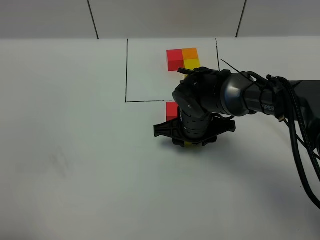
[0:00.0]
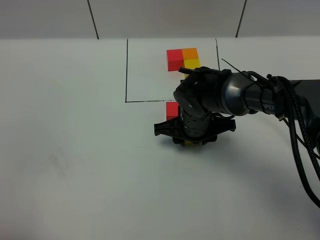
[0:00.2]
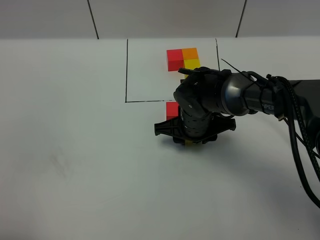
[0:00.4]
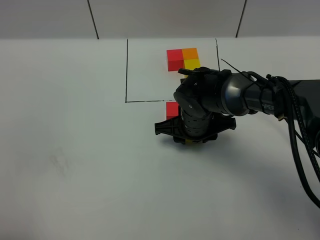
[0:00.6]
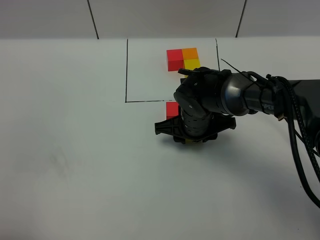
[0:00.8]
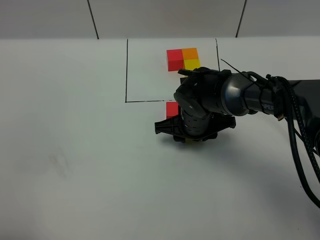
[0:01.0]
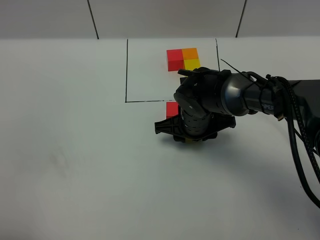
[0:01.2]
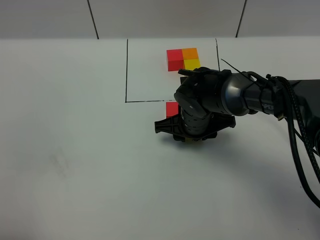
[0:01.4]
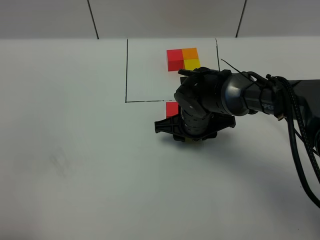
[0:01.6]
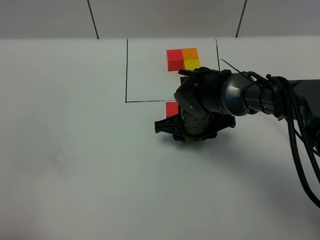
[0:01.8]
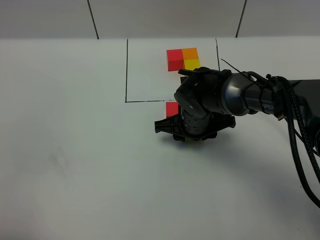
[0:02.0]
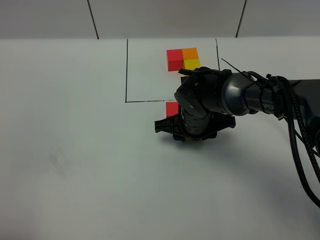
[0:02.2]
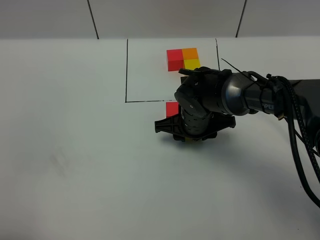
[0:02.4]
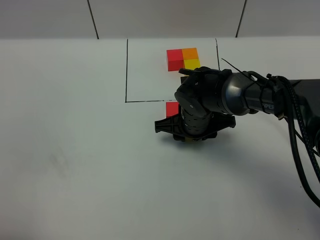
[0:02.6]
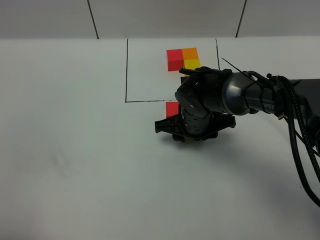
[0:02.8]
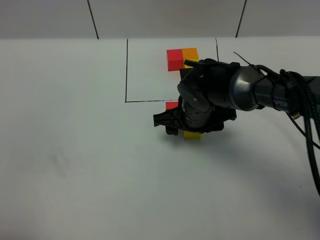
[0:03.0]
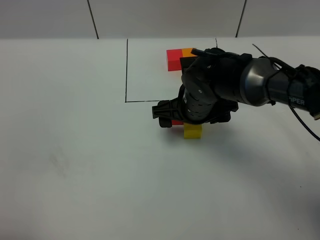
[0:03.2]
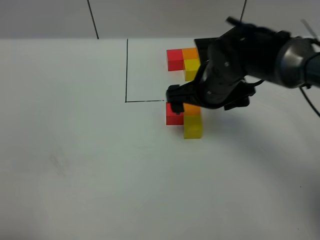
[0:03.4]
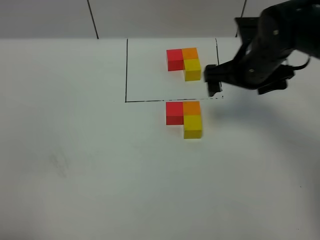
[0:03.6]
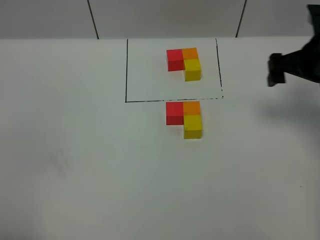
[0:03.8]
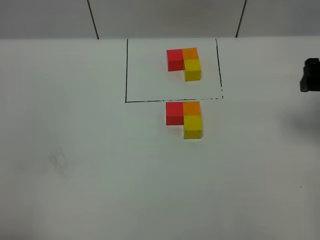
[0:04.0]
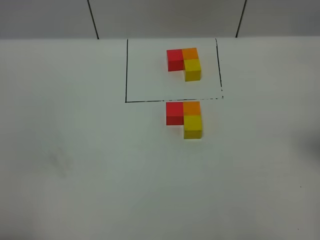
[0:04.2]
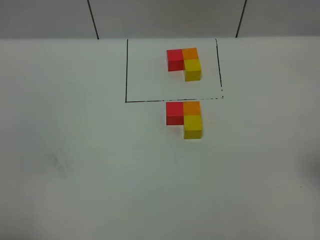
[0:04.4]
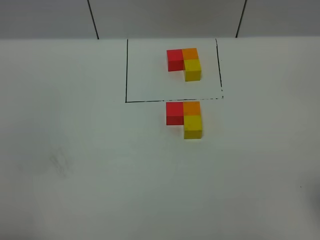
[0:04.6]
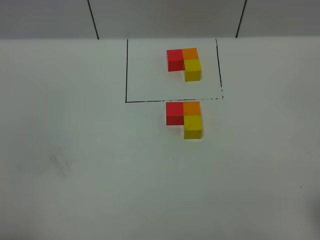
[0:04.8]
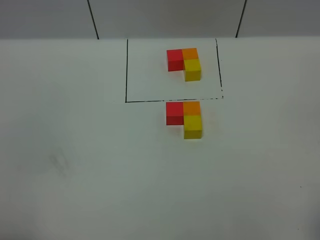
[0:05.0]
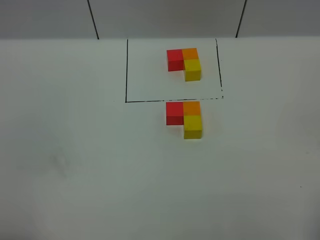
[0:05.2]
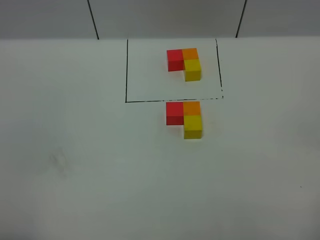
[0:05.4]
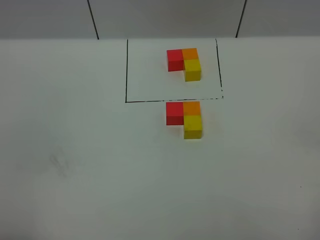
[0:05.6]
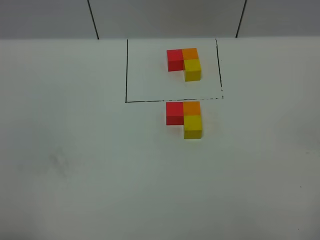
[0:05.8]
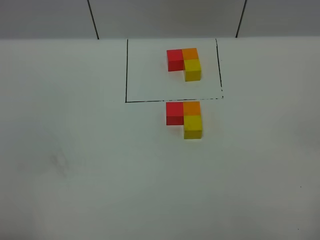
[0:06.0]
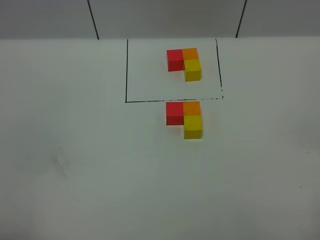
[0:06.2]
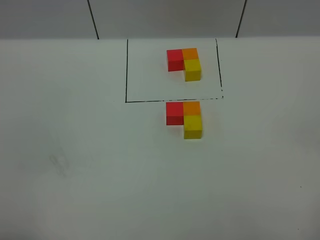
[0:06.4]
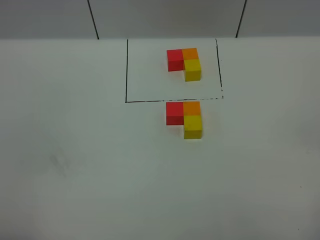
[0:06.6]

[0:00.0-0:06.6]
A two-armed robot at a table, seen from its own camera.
Task of the whole recording: According to the building block template in front, assemble the scattered blocks together.
0:00.0 to 0:01.6: Neither gripper changes place.
0:01.6 to 0:03.2: The right gripper moves upward, approximately 5 cm, and opens.
0:03.2 to 0:05.0: The right gripper shifts roughly 40 cm backward, to the right and upward.
